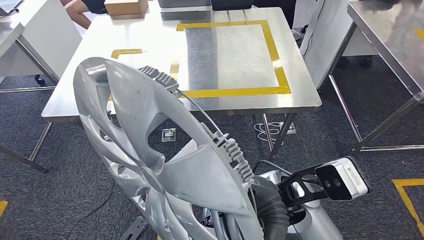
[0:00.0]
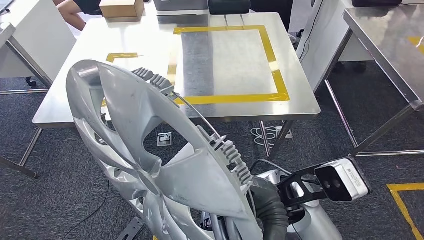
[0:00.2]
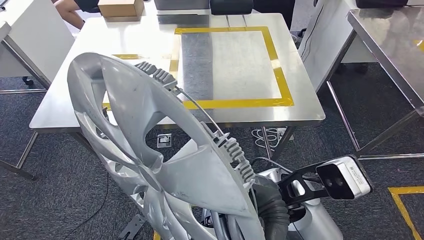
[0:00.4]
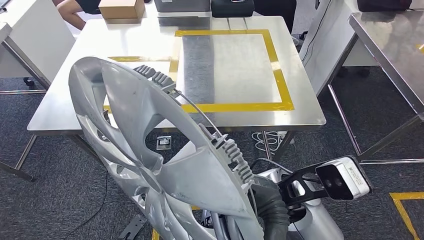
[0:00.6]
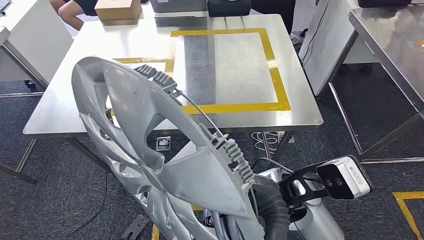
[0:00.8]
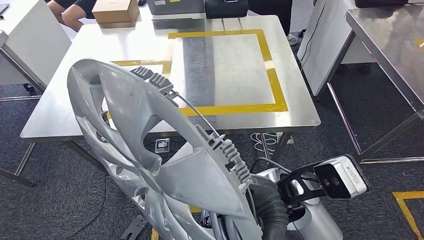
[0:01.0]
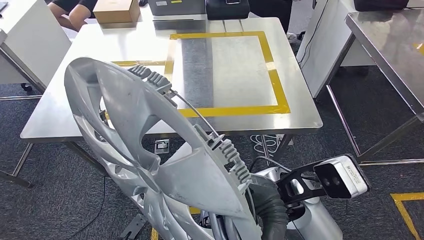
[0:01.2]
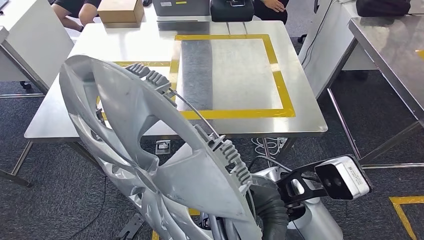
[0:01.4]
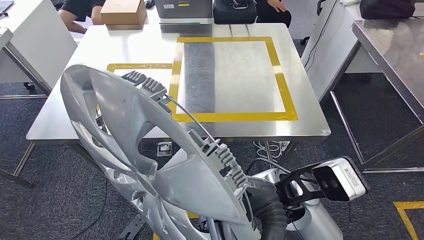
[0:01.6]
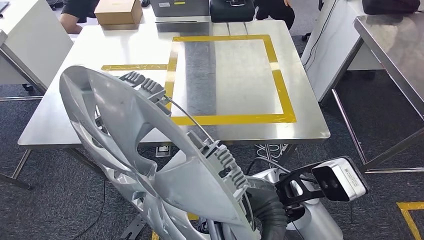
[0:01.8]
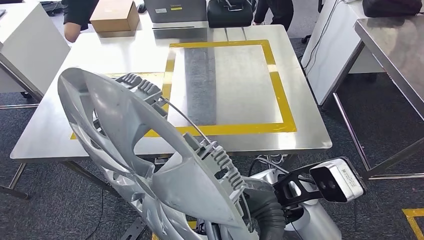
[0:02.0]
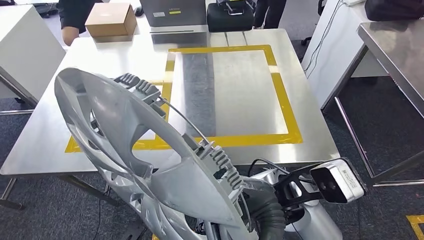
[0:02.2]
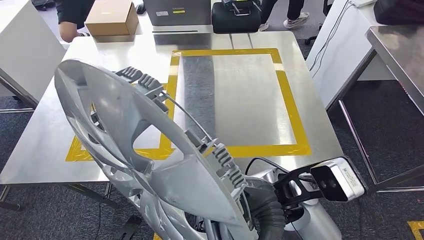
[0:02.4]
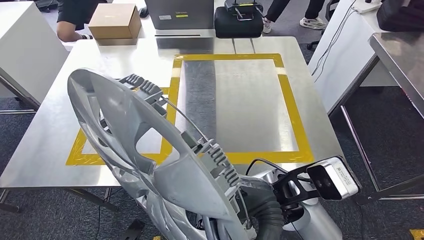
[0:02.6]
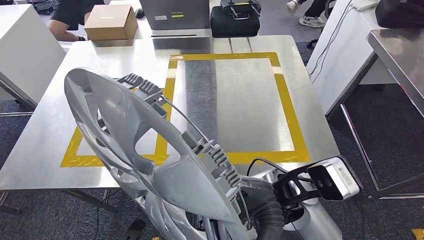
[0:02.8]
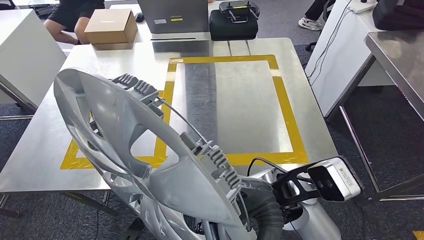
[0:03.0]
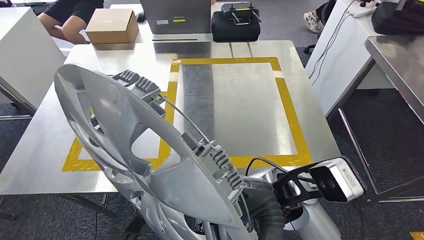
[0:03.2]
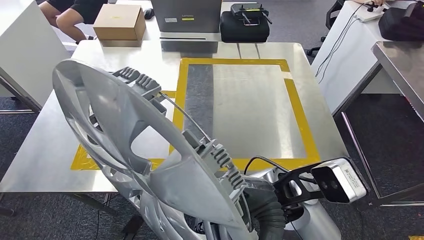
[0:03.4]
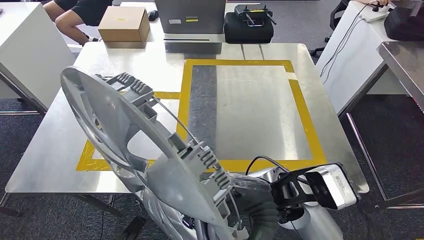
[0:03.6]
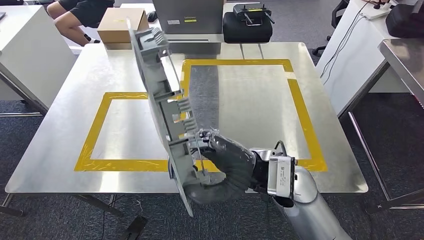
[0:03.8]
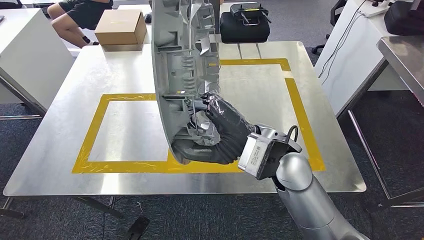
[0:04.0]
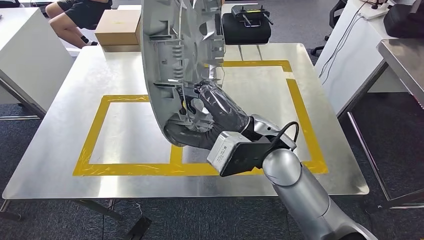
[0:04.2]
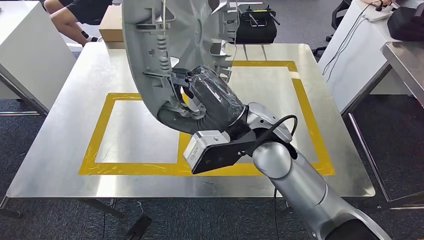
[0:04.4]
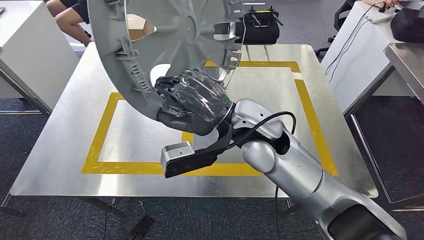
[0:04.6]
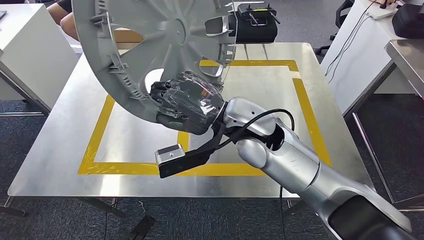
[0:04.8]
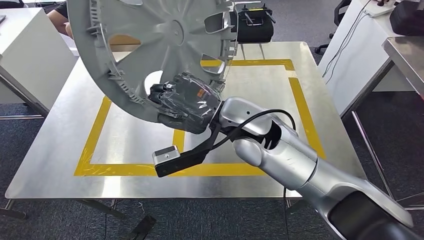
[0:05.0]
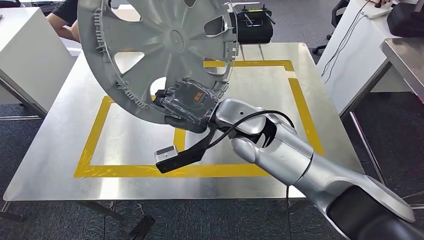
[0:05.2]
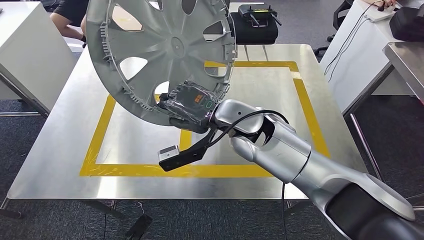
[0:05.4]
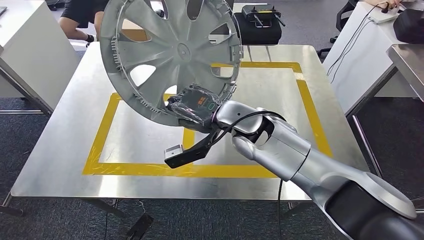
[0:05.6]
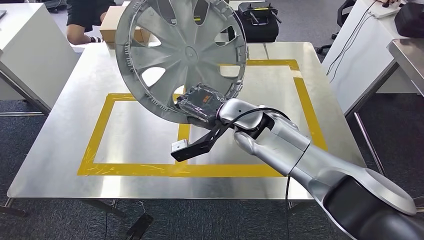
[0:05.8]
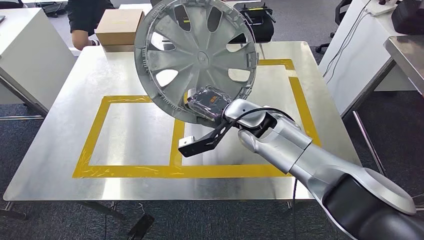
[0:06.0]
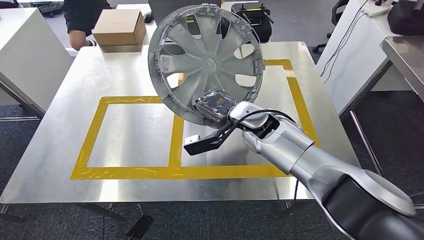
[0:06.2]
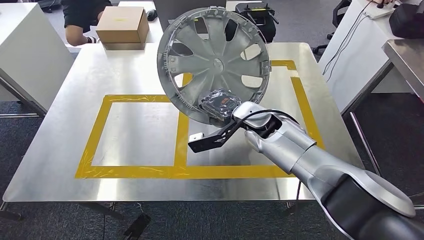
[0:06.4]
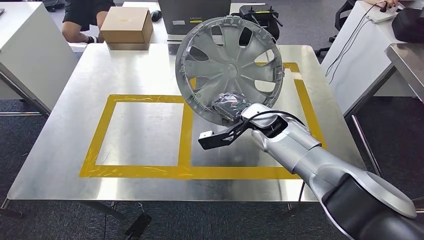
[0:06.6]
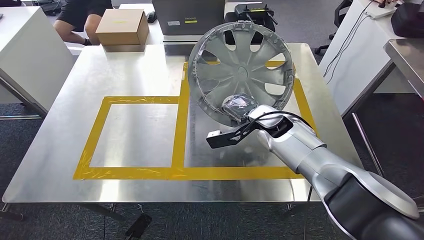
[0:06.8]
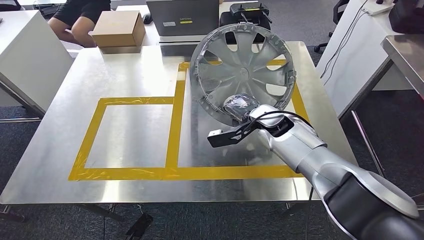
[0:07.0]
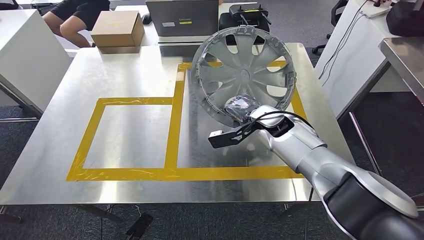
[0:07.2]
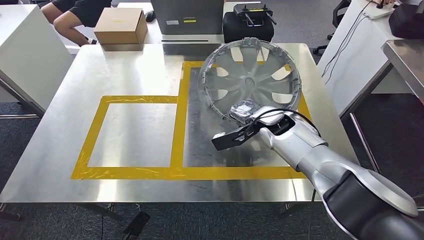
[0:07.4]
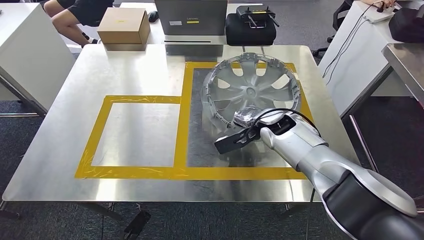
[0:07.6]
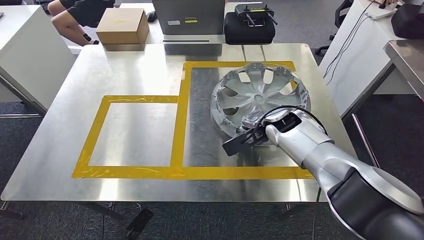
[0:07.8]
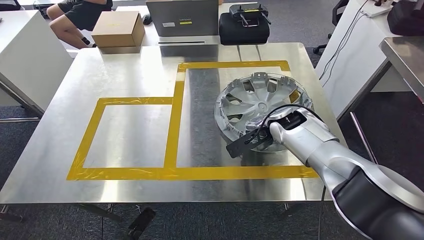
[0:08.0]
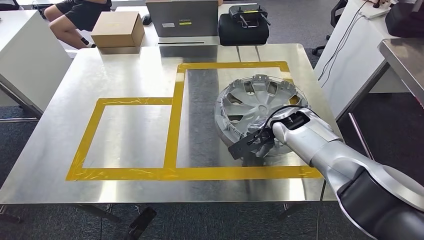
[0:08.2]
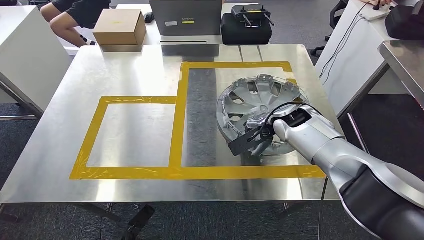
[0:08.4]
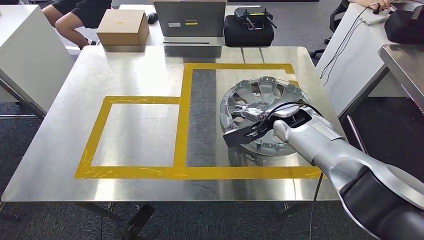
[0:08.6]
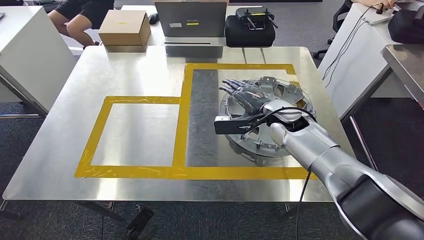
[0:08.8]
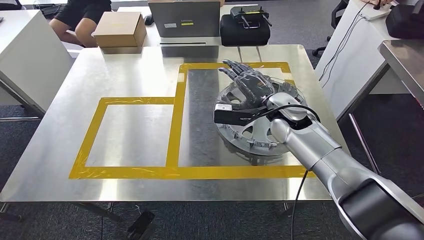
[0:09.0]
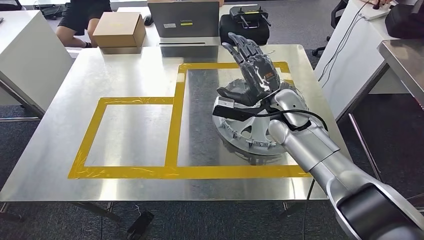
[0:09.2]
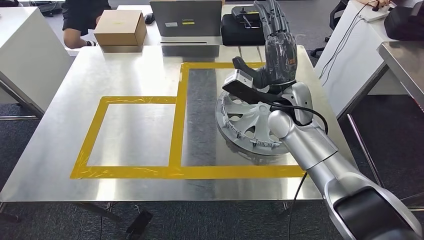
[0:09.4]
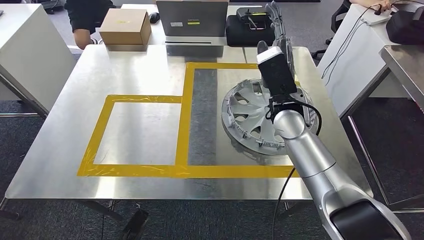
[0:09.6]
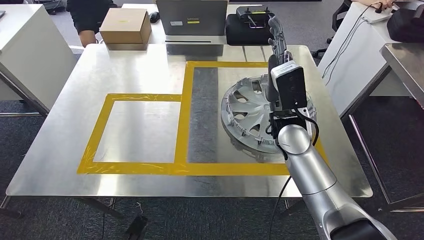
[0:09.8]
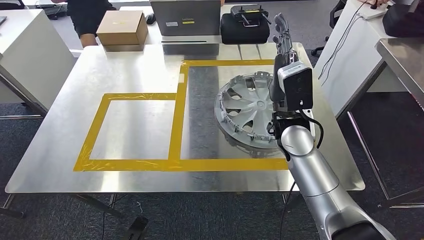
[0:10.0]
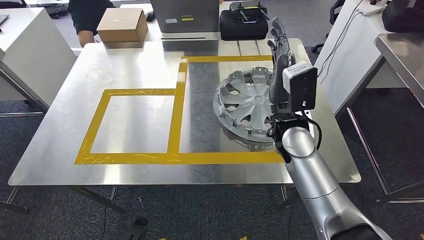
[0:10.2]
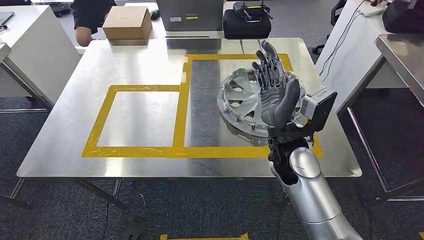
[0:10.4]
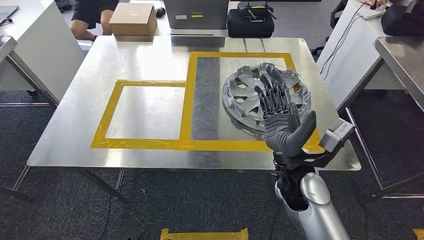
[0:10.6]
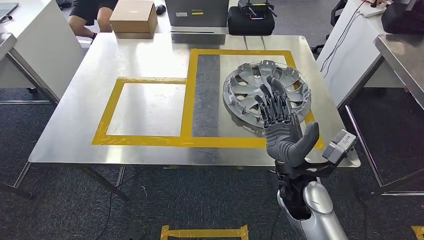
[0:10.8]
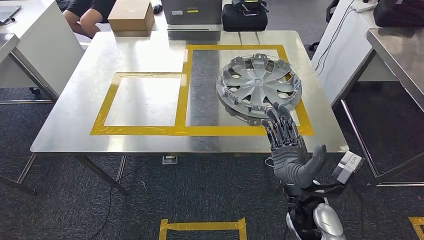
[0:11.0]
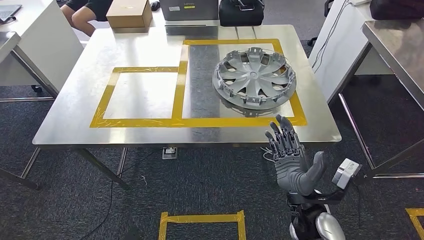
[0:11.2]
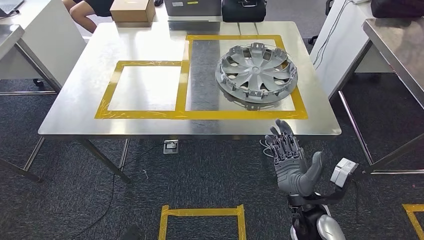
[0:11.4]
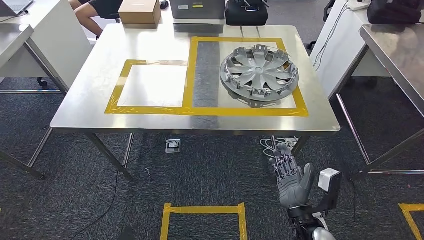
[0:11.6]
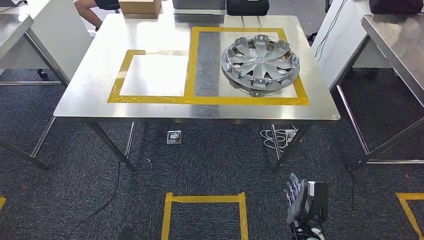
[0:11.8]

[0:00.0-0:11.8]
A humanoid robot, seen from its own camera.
Step, 0:00.6 to 0:09.4: Insert the small component into the corresponding slot on the workbench.

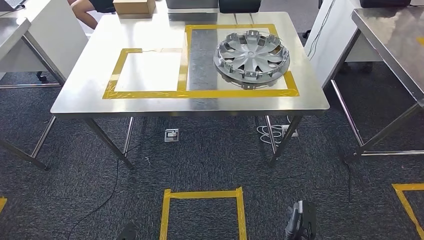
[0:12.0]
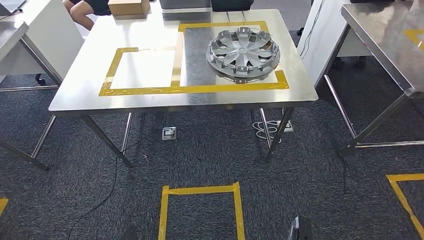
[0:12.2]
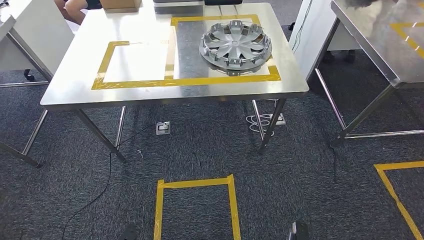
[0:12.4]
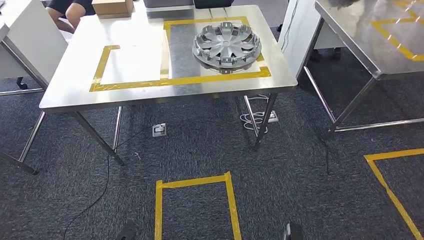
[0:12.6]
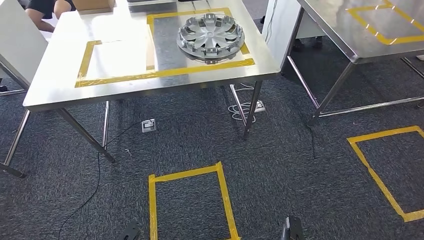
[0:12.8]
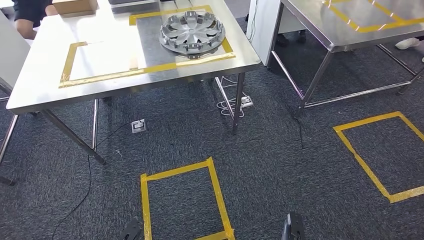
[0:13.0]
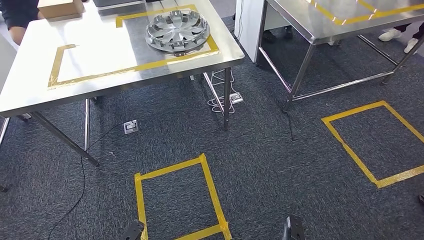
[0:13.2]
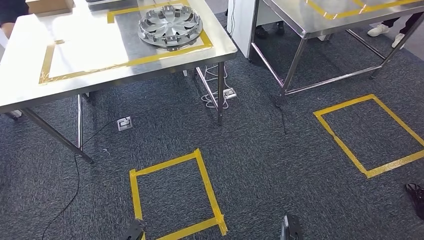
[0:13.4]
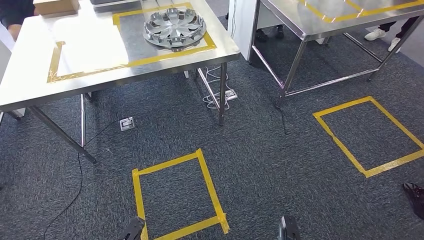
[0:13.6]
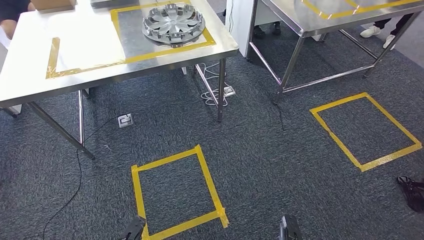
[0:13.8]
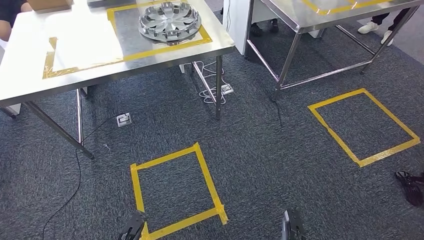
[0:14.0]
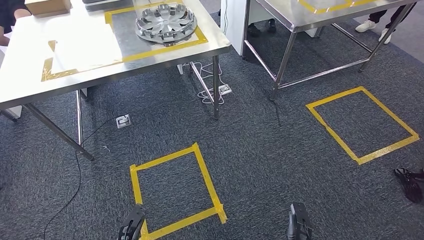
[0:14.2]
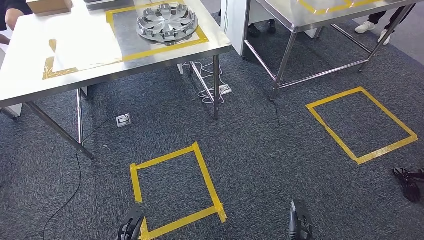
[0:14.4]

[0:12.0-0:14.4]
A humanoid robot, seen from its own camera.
Step, 0:12.0 to 0:14.4: Return to the initial position at the workbench.
